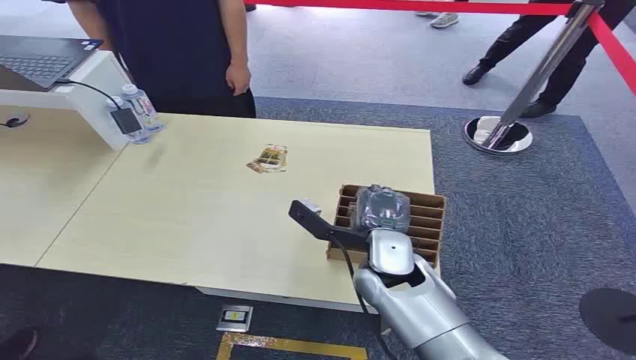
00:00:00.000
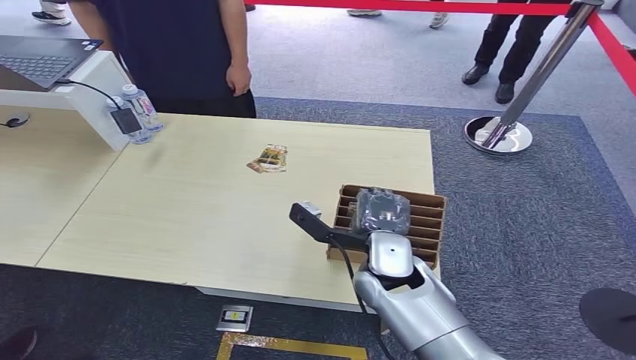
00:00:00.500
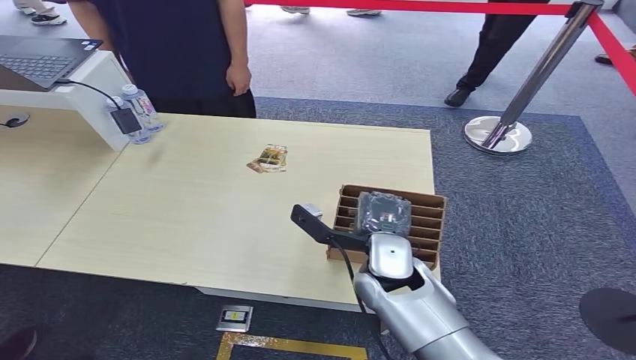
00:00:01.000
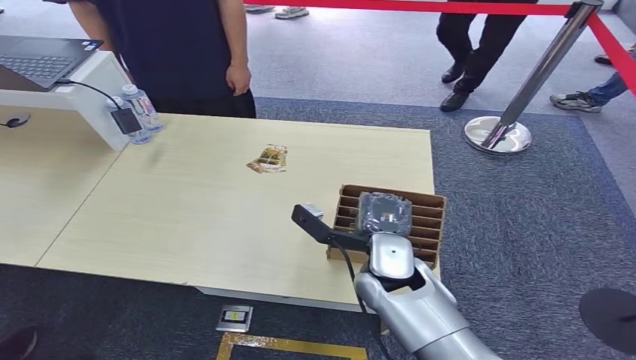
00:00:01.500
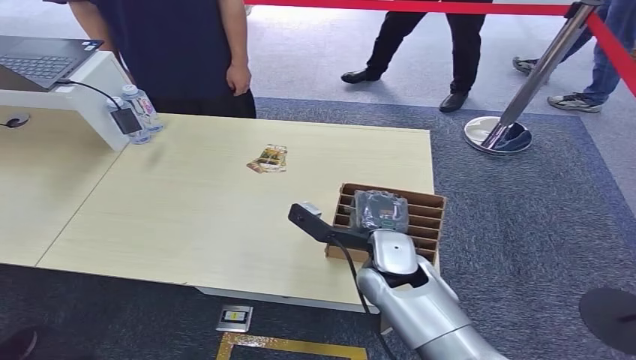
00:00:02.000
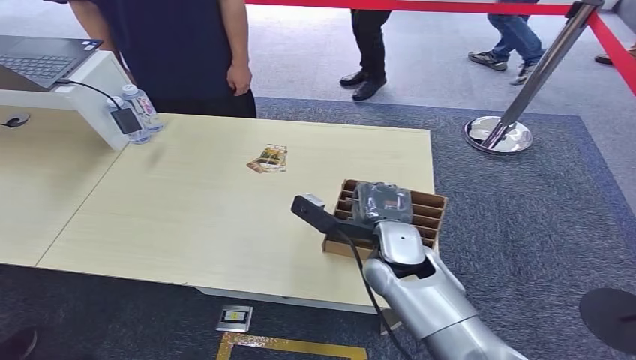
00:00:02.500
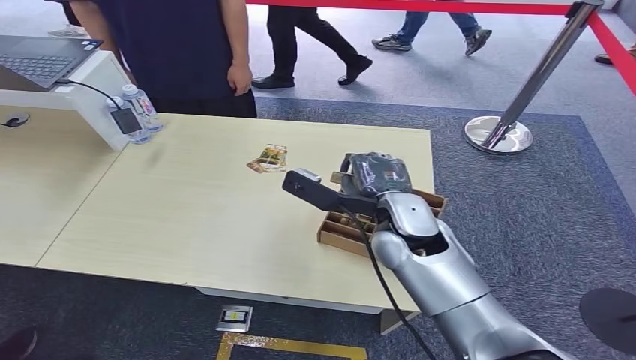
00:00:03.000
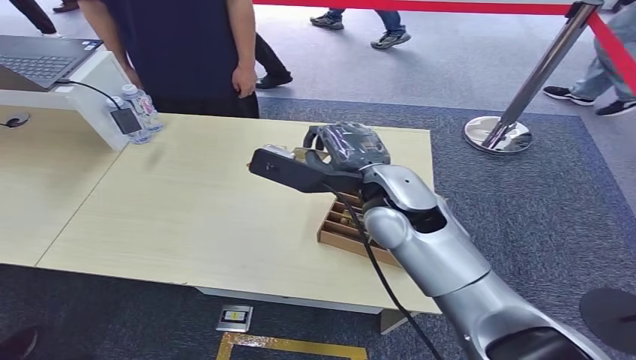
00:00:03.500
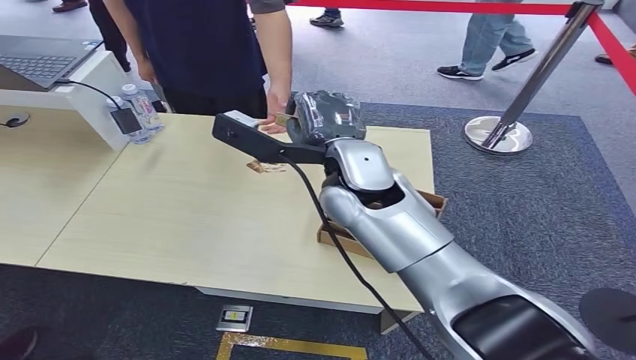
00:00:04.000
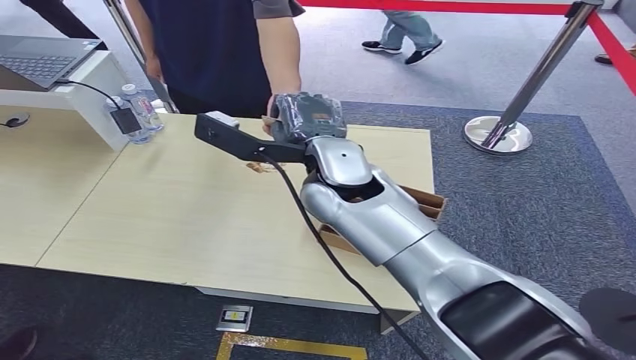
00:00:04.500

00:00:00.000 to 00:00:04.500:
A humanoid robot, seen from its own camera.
Step, 00:00:00.000 to 00:00:03.500: Pick up the key card from the card box.
Step, 00:00:04.000 to 00:00:04.500: Hand the key card to the target.
